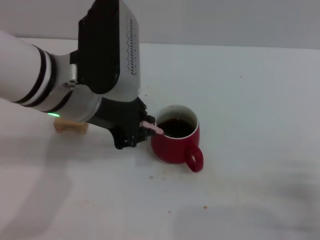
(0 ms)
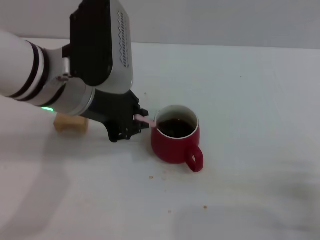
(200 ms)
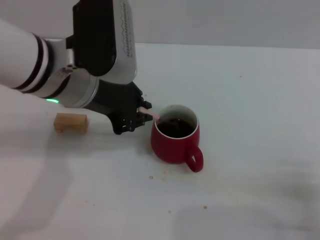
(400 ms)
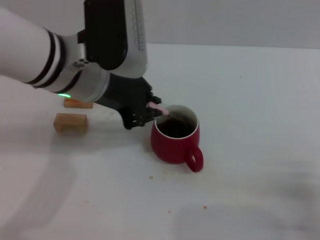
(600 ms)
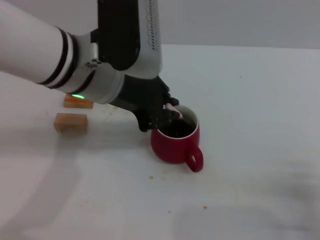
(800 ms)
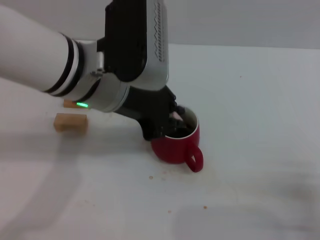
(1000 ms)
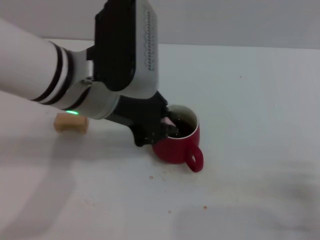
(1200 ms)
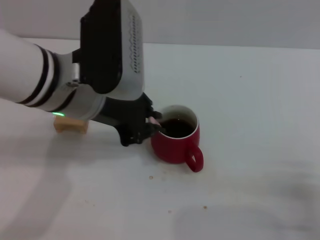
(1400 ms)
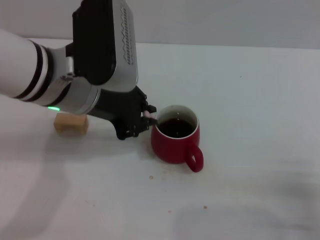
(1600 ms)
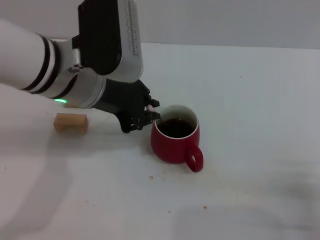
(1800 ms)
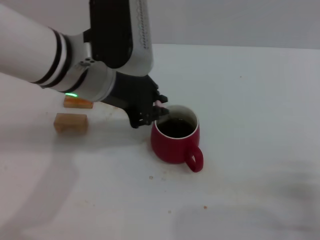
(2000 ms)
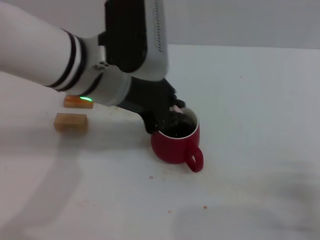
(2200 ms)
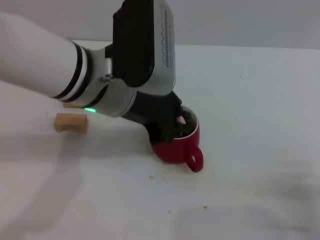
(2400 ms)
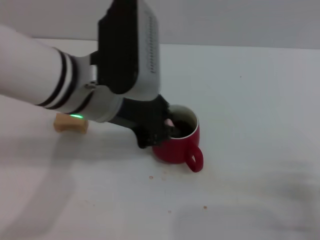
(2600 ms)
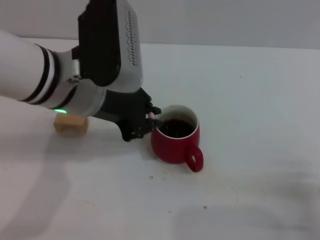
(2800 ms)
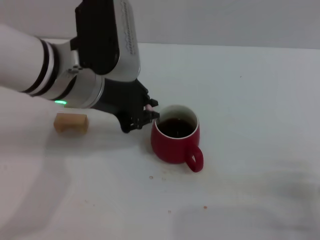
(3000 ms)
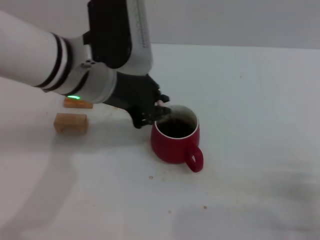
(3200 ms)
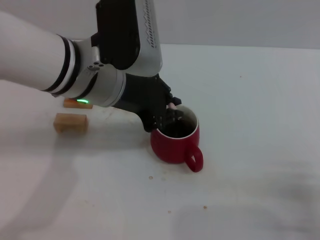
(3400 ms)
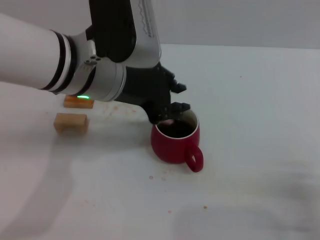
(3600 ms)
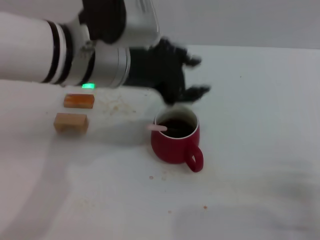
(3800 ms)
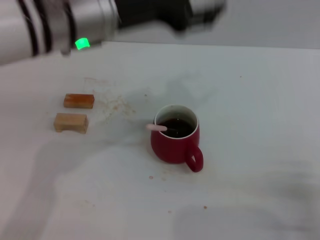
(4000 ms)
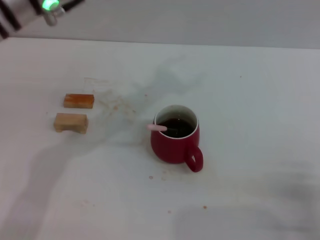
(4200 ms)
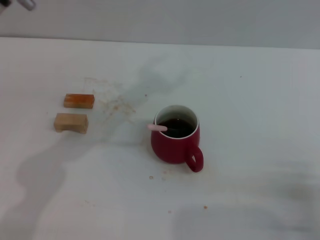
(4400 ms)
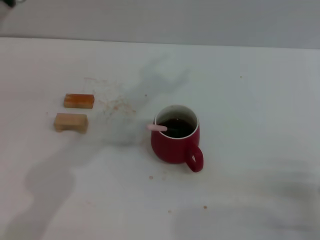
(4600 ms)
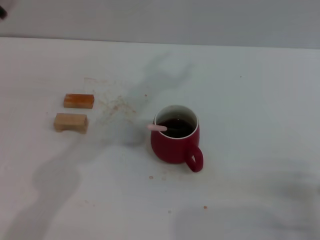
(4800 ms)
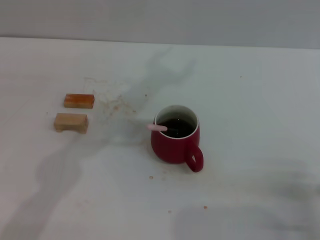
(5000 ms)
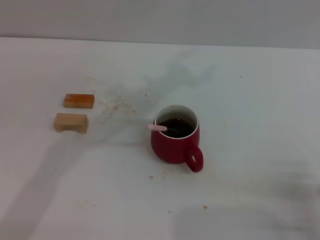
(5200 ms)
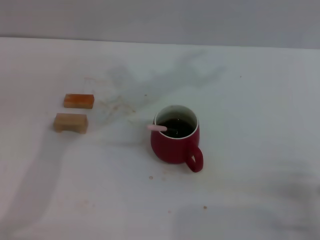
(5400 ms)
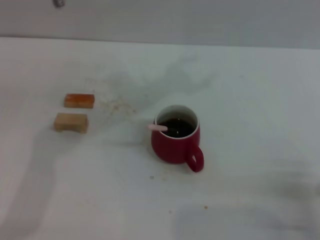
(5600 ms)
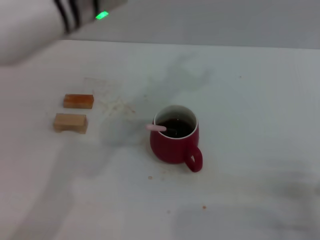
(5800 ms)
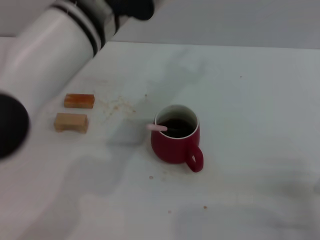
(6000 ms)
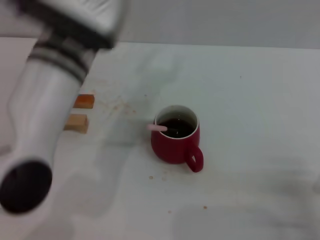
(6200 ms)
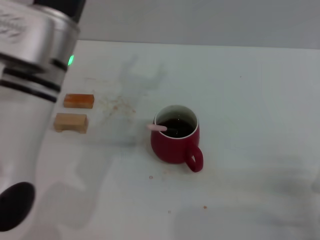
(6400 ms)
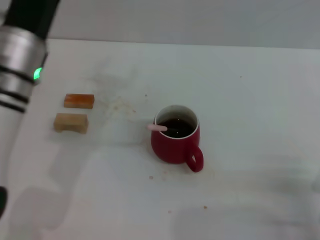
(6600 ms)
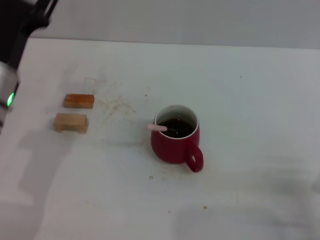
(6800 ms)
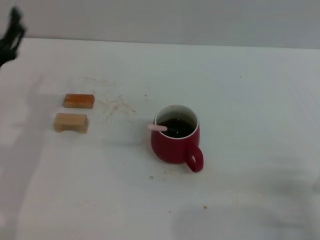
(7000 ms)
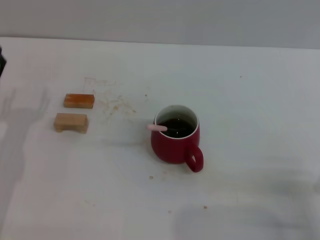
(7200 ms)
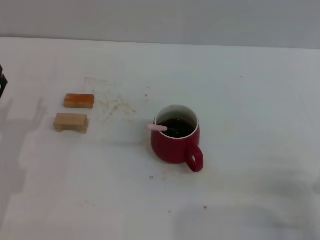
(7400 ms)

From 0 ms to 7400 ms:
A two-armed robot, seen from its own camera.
Task of the whole recording: Move the red cup to the center, lift the pink spoon, stir it three times in the cup, and put the spoon into the cup.
Step, from 0 ms to 3600 ms: Stir the coffee with left gripper.
From 0 ms to 3000 ms: The grippers make only small movements.
From 3000 ms to 4400 ms: The left gripper travels upward by approximately 10 cm, and opens.
From 4400 ms to 6000 ms: The left gripper moves to the right, approximately 10 cm.
From 6000 ms to 7400 ms: The left gripper moves to the left and downward, roughly 30 cm.

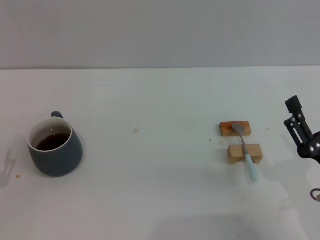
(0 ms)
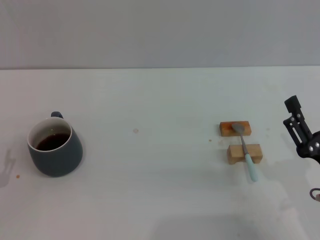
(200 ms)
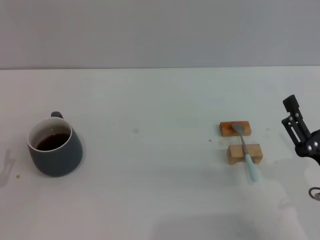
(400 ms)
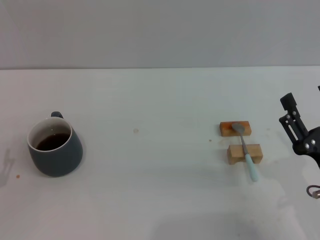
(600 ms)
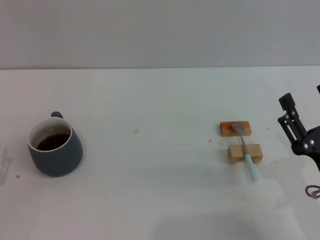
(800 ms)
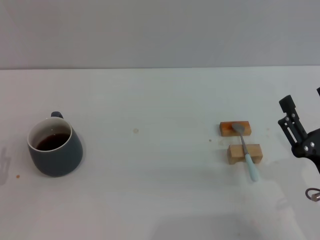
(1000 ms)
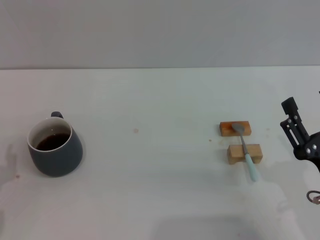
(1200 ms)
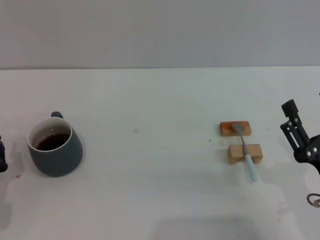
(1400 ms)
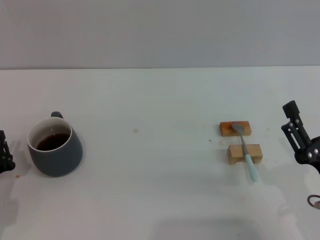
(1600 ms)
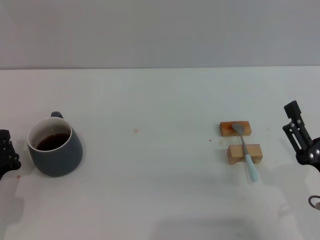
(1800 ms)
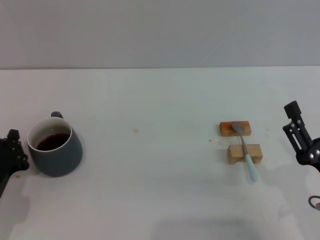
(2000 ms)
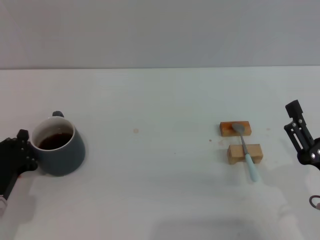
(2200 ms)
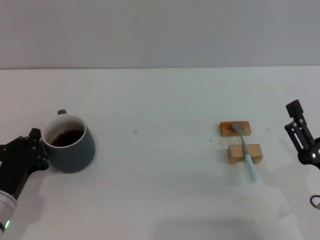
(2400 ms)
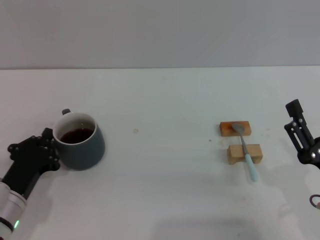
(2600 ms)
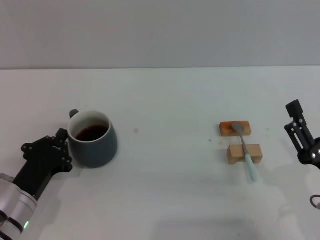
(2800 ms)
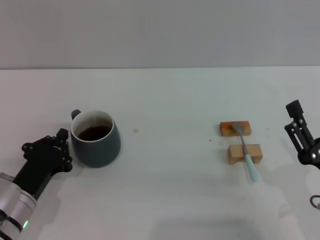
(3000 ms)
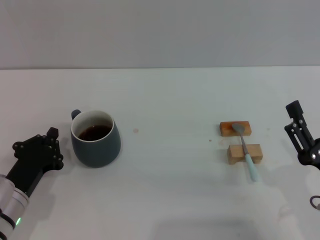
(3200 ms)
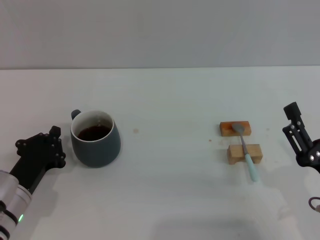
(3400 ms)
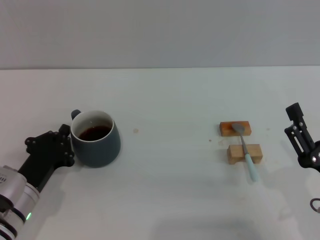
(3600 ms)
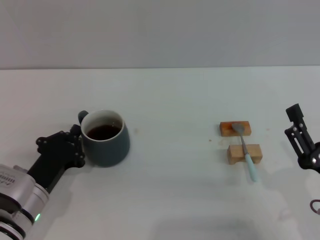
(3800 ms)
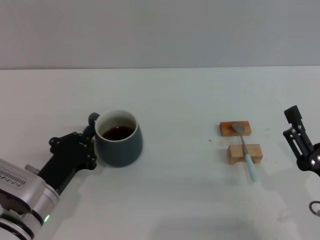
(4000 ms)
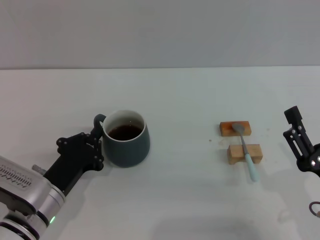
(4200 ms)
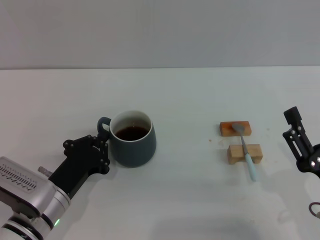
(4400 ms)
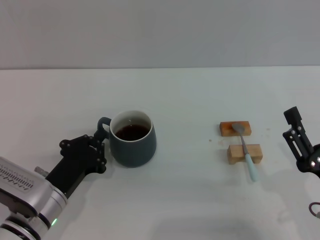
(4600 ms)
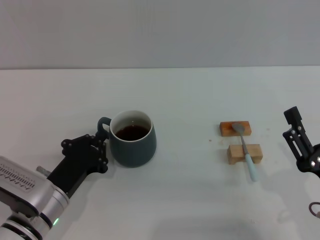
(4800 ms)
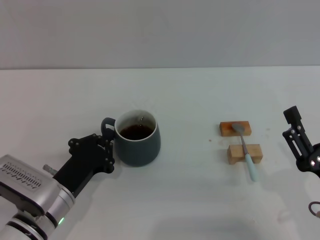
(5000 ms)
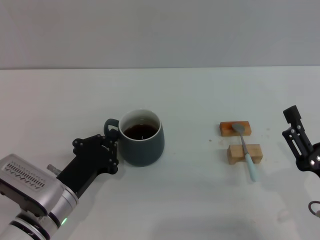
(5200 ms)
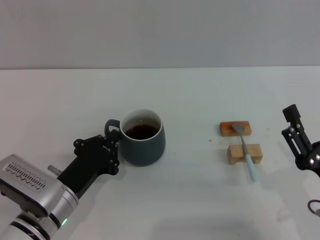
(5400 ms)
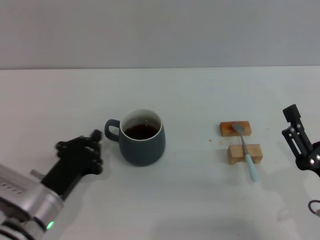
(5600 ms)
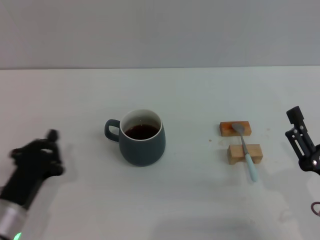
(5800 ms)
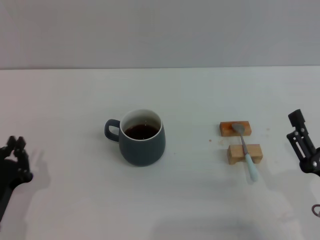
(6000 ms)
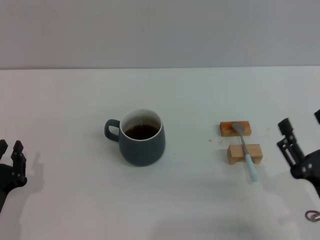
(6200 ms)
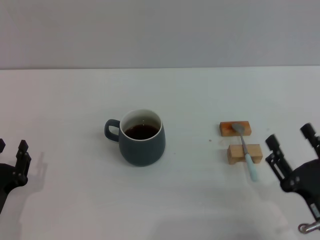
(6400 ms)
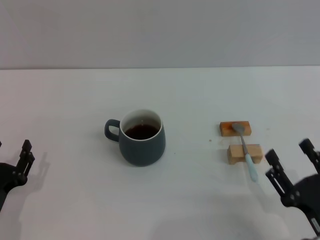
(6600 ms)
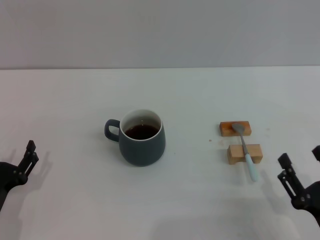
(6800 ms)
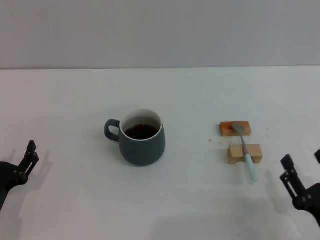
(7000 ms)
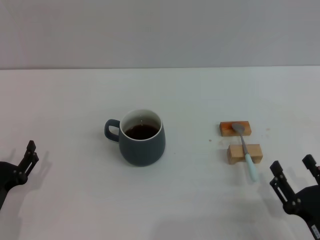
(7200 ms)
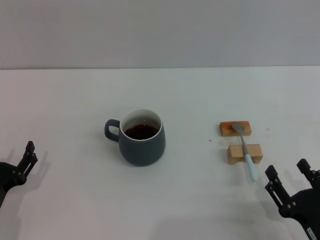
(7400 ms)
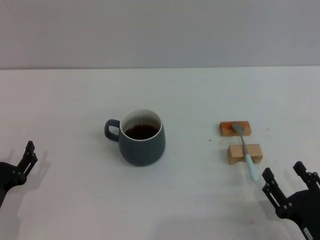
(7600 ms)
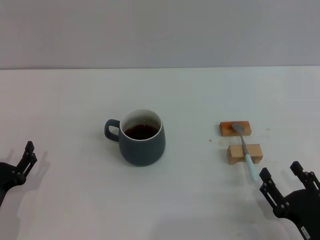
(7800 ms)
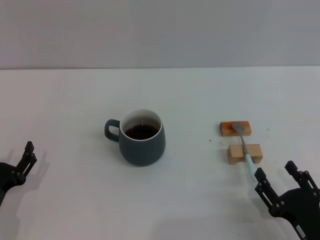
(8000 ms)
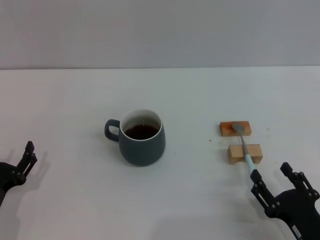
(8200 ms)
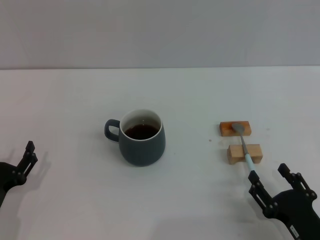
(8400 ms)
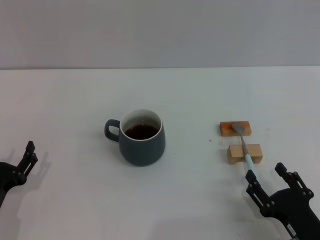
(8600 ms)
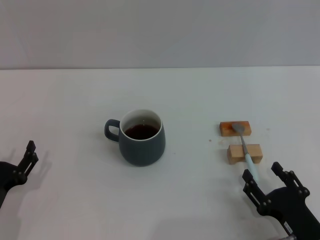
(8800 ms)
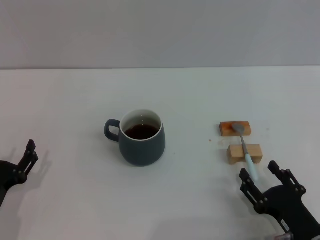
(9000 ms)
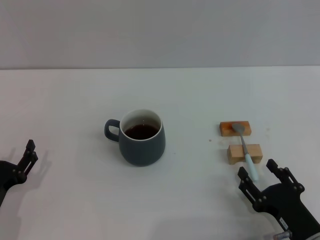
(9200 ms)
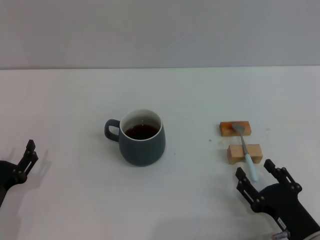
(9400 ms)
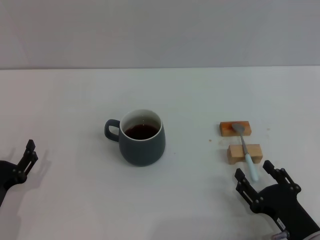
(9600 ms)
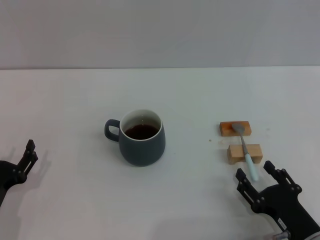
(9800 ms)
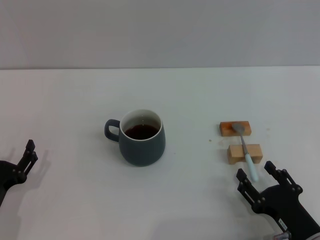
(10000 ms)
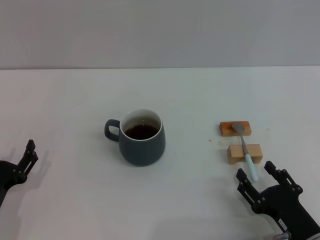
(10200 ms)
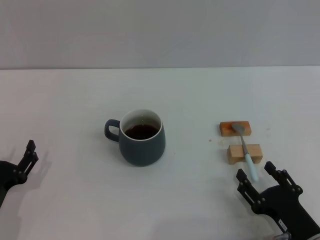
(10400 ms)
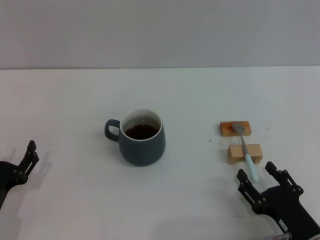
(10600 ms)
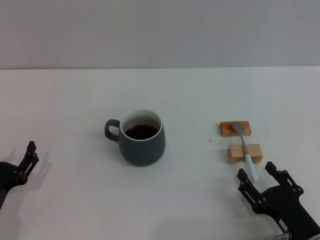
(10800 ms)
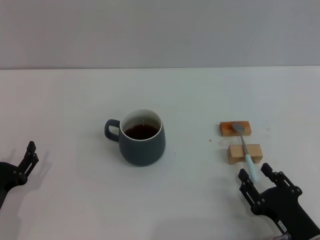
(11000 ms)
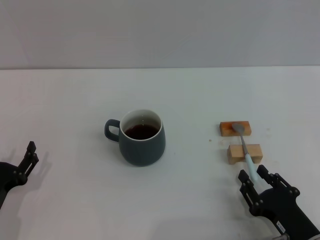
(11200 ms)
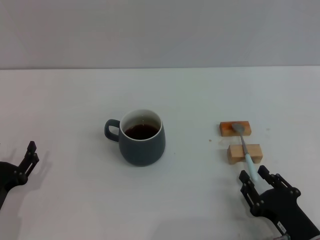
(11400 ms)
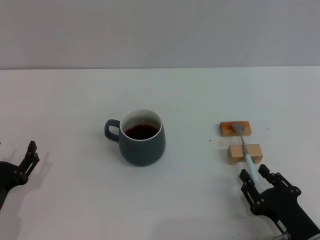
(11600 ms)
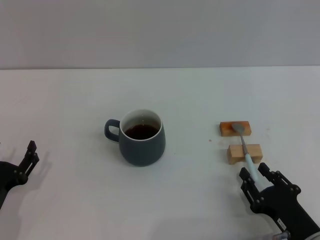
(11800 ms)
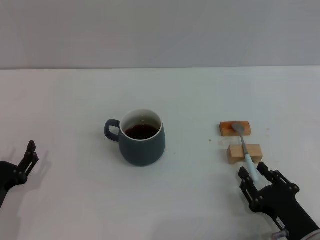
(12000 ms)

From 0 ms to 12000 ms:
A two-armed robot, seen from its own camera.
Task of the whole recording: Move the grey cup to the center, lift the blue spoon, stir it three times in the cup, and put the spoon into the cup.
Step, from 0 ms to 5400 ms: Move the cup with coffee to the center of view with the left gripper.
From 0 ms to 1600 ms: The left gripper closes its fingers.
From 1600 ms to 3000 ms: The left gripper shifts approximately 5 cm to the right.
From 3000 ms to 4400 ms: There are only small adjustments of the grippers.
From 4400 ms to 6000 ms: The left gripper travels to the left and backward by some 10 cm.
From 6000 ms to 7600 ms: The left gripper opens its fingers. Meanwhile the right gripper goes roughly 5 cm downward.
From 7600 ms to 9000 ms: The grippers move only a little.
From 9000 ms to 12000 ms: Both grippers stay about where they are.

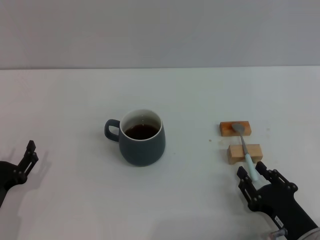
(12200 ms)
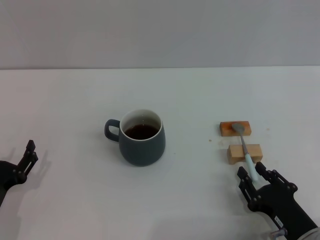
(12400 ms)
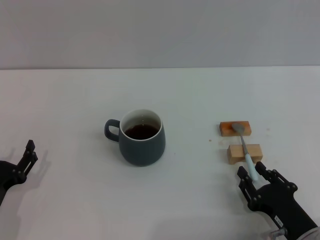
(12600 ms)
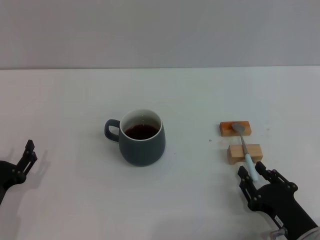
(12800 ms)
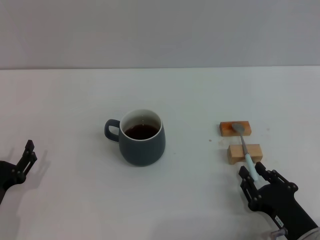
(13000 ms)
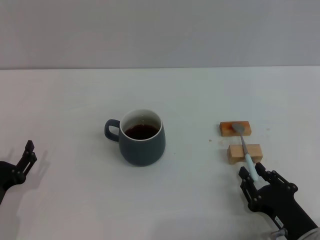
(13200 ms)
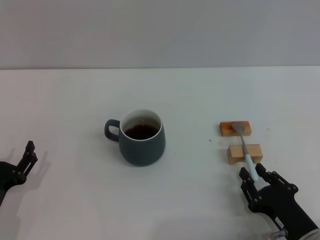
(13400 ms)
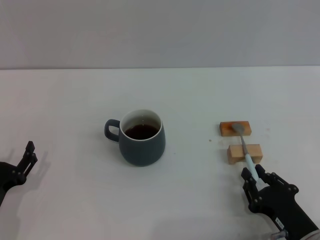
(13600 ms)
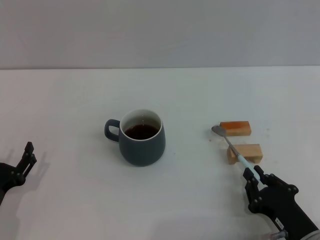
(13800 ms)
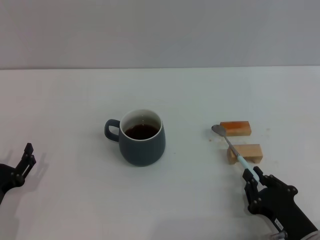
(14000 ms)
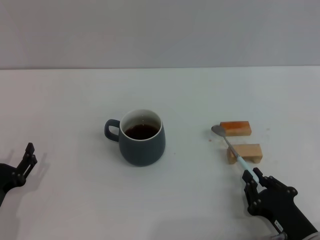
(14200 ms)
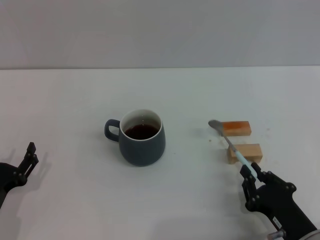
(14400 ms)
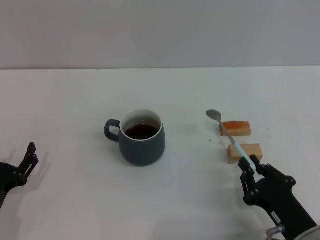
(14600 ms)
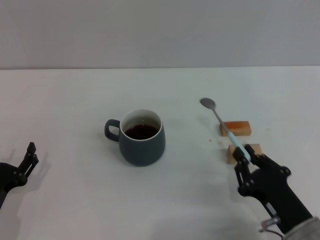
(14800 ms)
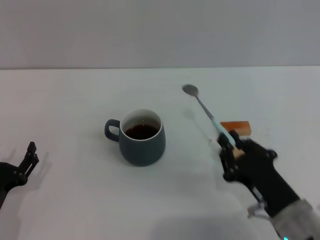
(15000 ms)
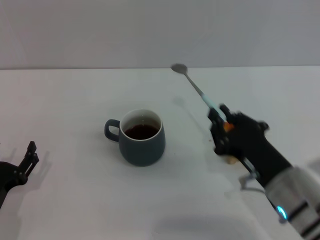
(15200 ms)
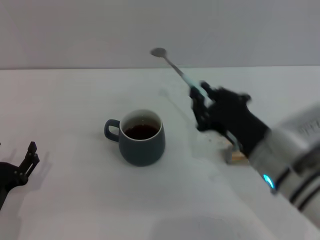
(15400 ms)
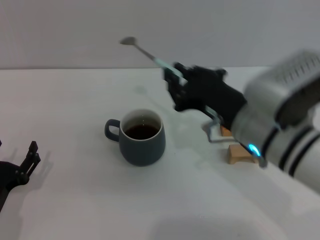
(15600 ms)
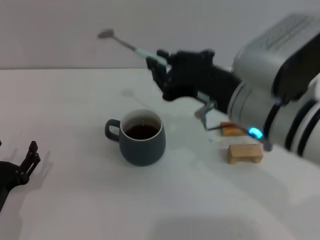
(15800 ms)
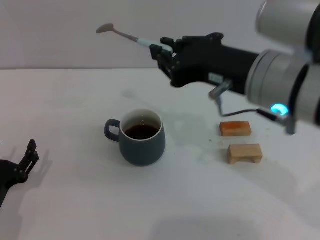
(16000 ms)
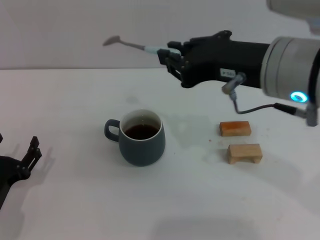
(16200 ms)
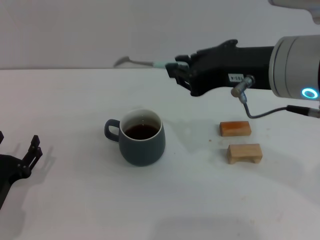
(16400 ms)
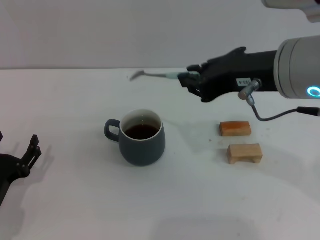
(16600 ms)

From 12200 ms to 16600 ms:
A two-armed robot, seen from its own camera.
Task of the whole recording: Move the grey cup to the center, lift the blue spoon, stir it three times in the cup, and put the spoon into the cup.
Step, from 12200 ms to 14400 ms: Pick up the spoon with the right gripper.
From 12200 ms to 13600 ms: Neither gripper changes place.
From 13600 ms to 15200 ms: The right gripper moves upward and to the left, about 10 cm.
From 15200 ms to 16600 ms: The right gripper moves upward, roughly 20 cm.
